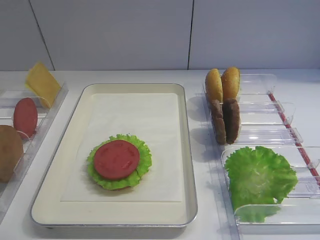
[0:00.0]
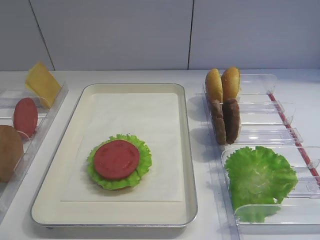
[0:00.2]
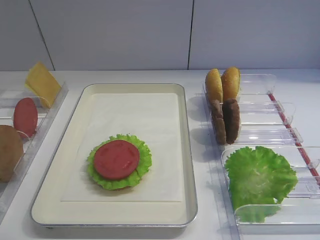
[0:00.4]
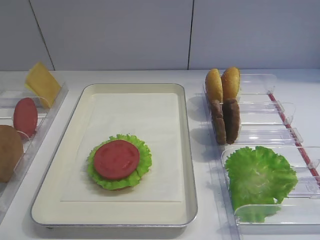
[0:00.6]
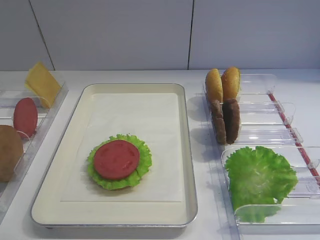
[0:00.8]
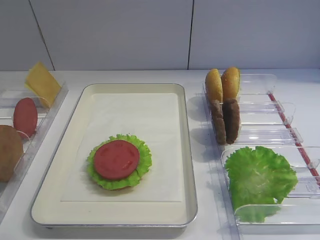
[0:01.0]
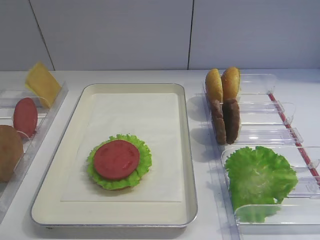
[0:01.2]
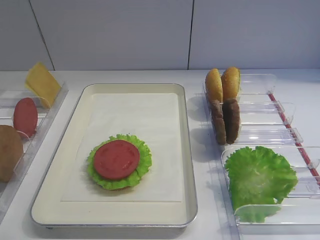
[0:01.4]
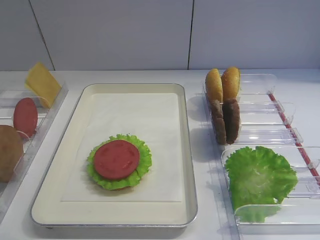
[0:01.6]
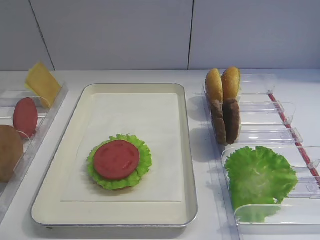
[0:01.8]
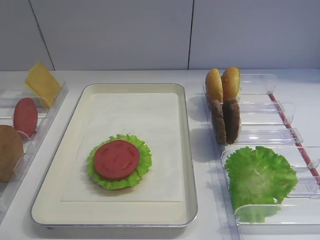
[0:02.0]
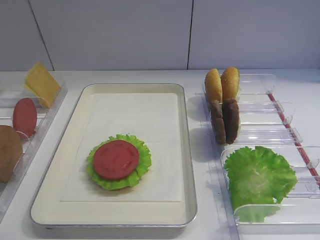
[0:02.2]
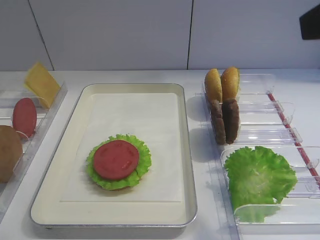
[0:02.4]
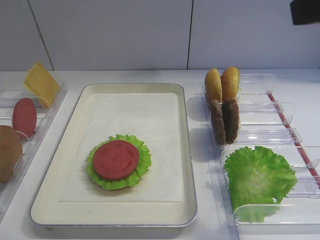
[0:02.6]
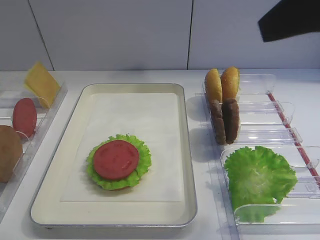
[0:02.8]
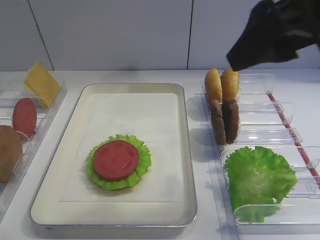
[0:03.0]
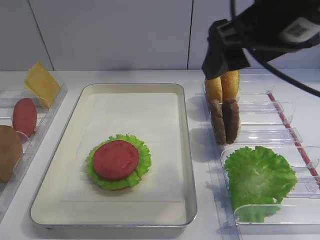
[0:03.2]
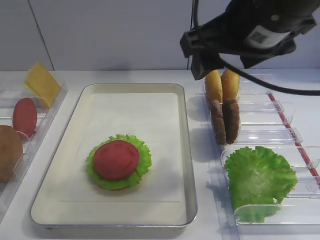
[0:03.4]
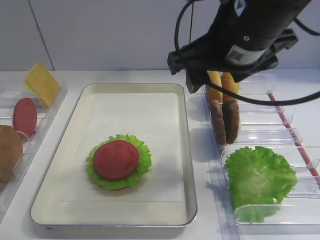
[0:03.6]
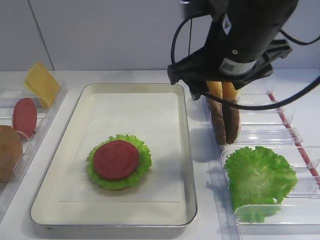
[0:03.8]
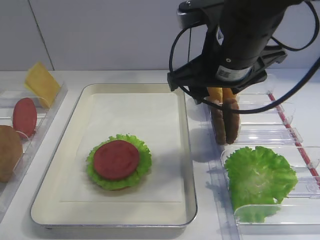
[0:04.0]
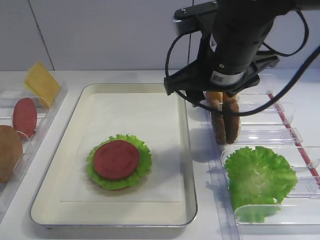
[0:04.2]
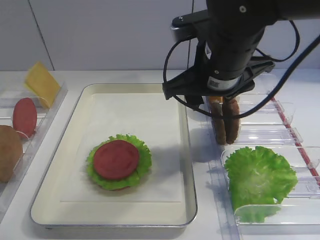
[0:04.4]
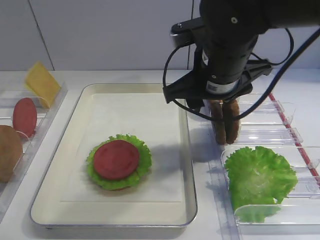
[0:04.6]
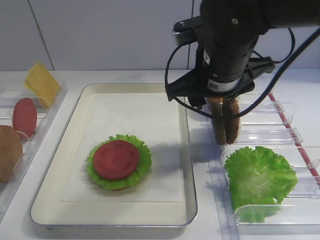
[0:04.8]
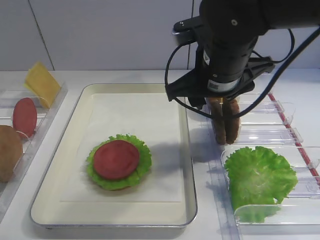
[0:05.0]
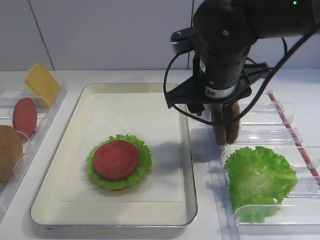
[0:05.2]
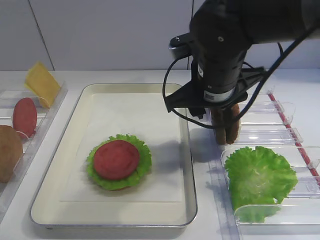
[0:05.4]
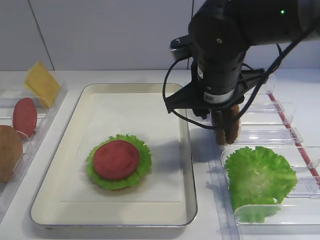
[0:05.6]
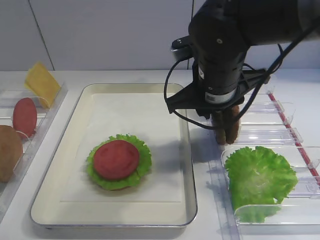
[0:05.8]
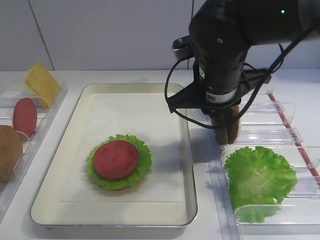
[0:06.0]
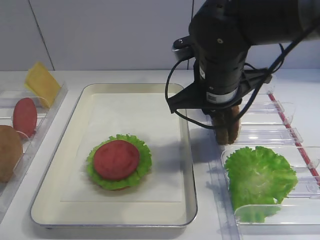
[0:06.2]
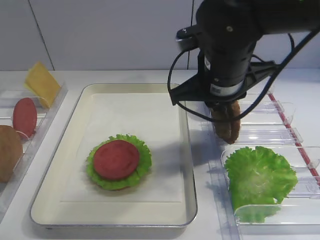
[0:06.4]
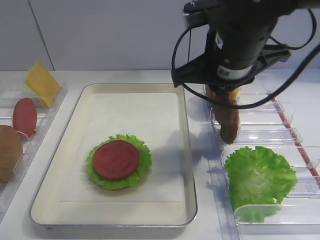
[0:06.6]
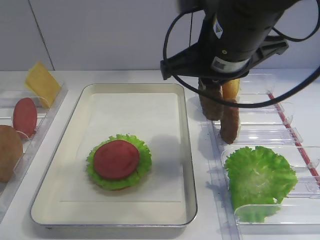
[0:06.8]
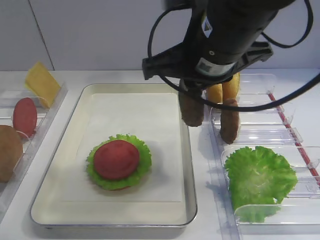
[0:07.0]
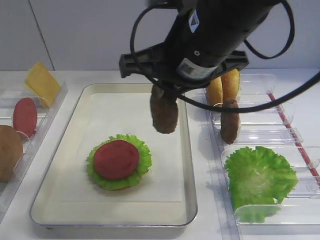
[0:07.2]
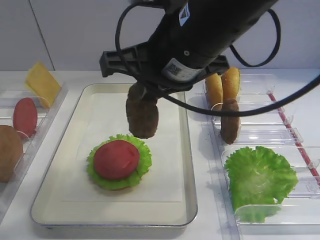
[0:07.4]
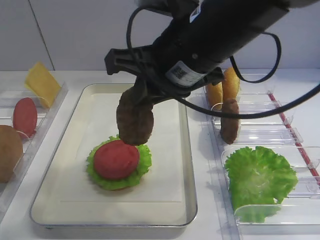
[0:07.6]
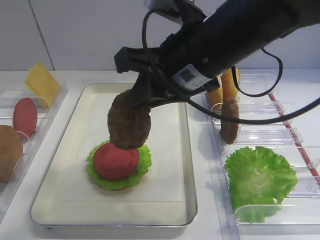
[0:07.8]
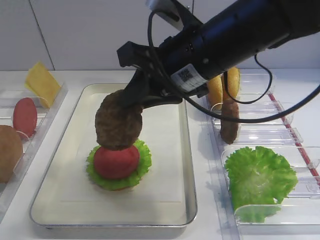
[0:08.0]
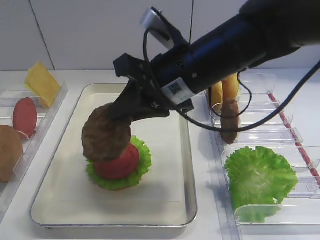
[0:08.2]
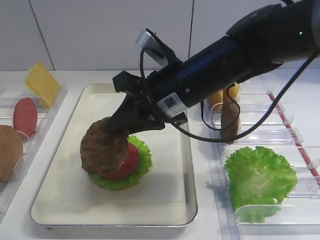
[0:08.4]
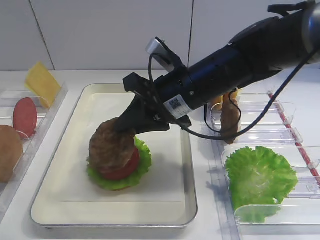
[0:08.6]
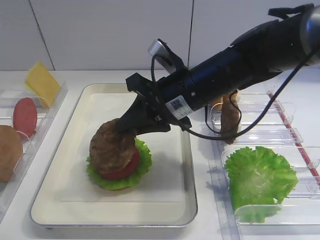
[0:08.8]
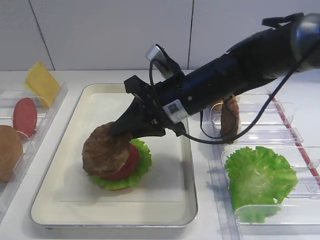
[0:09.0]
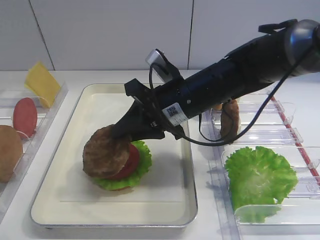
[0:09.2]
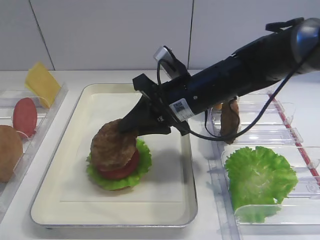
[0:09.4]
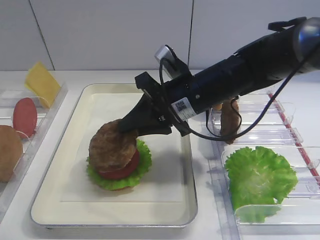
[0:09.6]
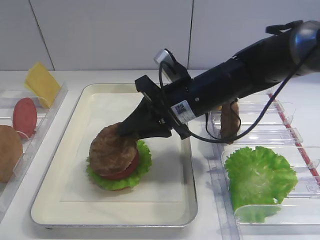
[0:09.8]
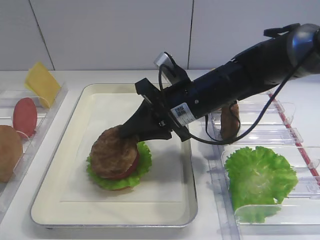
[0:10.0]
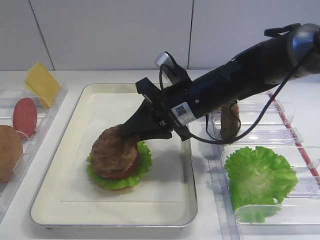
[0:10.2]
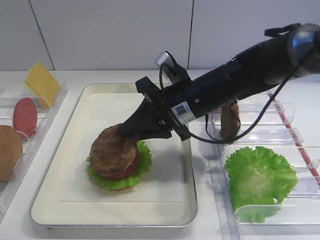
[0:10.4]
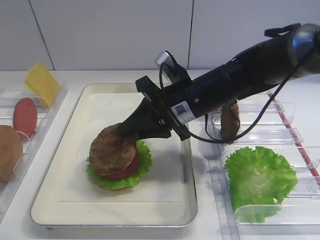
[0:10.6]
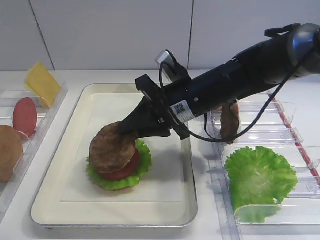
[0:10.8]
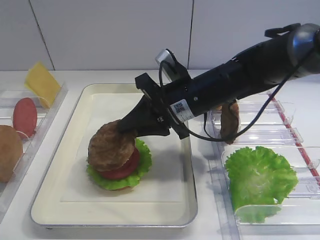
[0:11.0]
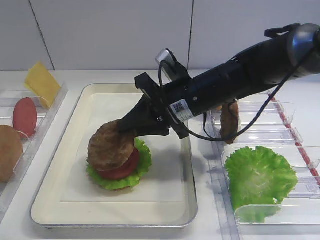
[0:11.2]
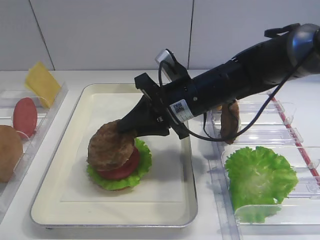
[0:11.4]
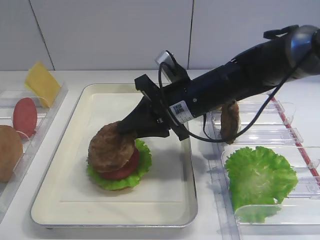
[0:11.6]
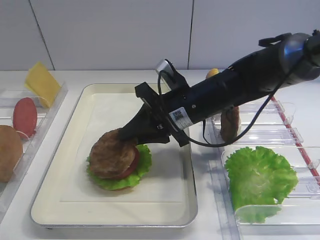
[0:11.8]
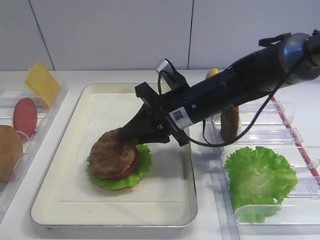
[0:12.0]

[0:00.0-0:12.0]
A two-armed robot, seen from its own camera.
Step, 0.0 to 6.6 s: Pick up the cutlet with the right gripper.
1.6 to 3.0 s: The right gripper travels forward and to the left by about 20 cm.
3.0 to 4.4 s: The right gripper travels downward, to the left and forward by roughly 15 cm, and closes up.
4.4 to 6.0 s: The right gripper closes its fingers.
6.0 to 7.6 s: The right gripper shifts roughly 10 cm upward and backward.
7.6 to 9.0 s: The right gripper heads downward and forward, covering about 10 cm.
9.0 to 12.0 s: The grippers make only small movements.

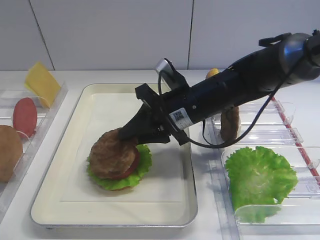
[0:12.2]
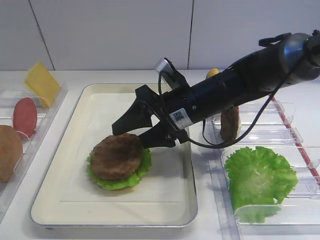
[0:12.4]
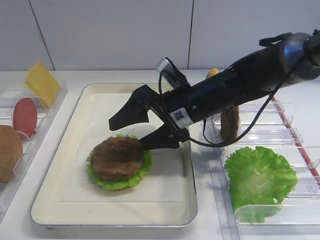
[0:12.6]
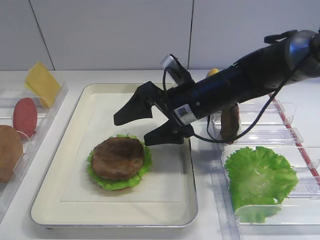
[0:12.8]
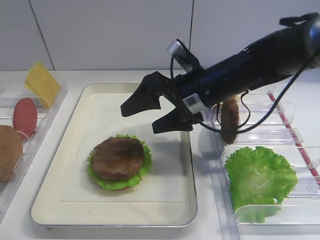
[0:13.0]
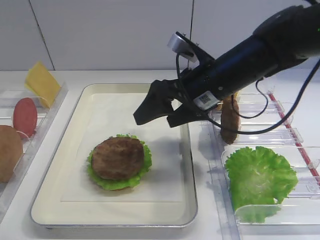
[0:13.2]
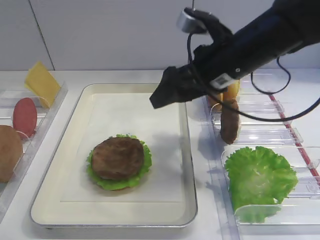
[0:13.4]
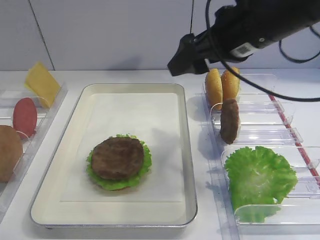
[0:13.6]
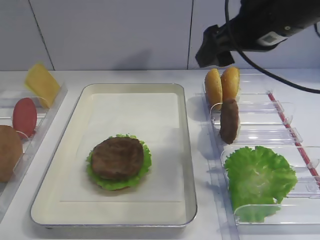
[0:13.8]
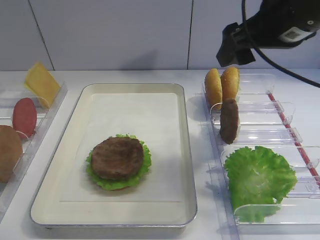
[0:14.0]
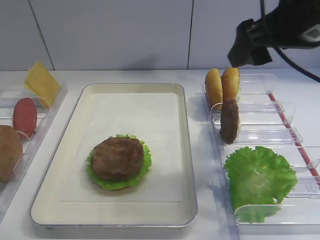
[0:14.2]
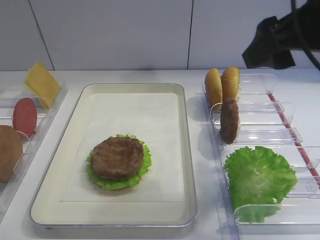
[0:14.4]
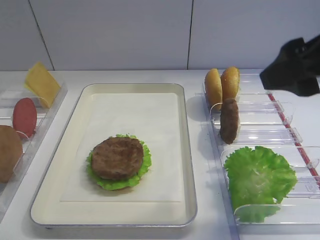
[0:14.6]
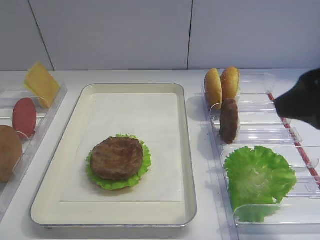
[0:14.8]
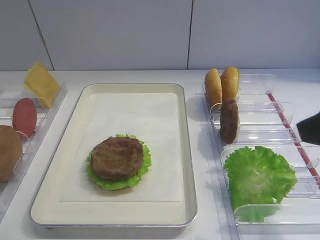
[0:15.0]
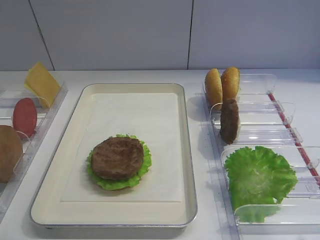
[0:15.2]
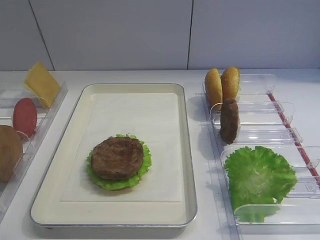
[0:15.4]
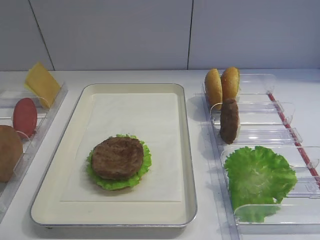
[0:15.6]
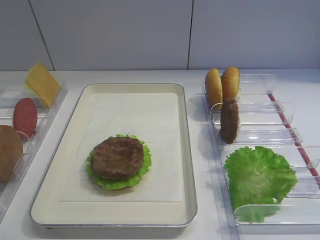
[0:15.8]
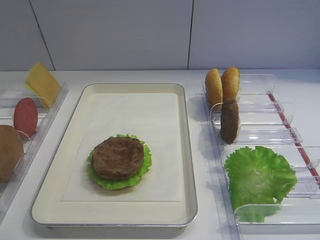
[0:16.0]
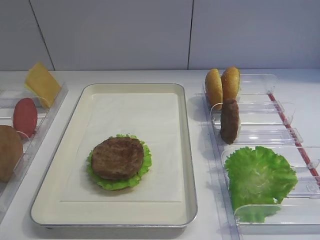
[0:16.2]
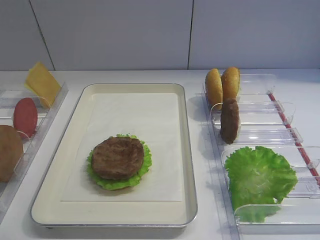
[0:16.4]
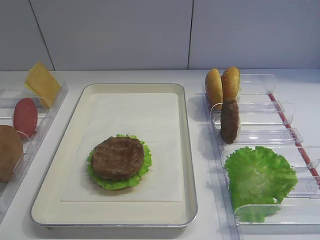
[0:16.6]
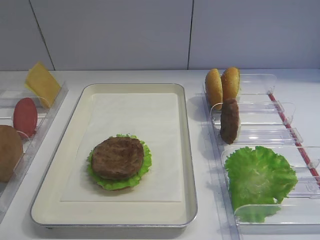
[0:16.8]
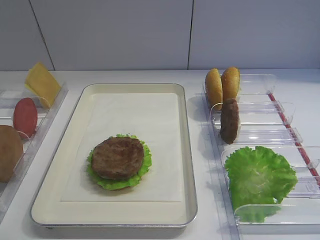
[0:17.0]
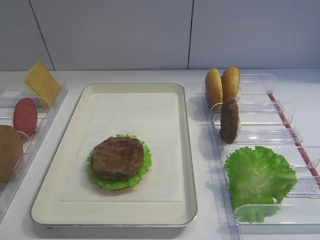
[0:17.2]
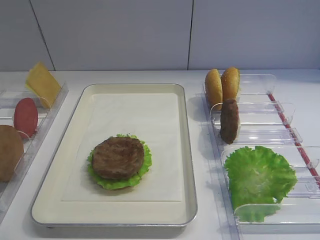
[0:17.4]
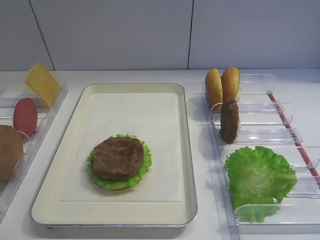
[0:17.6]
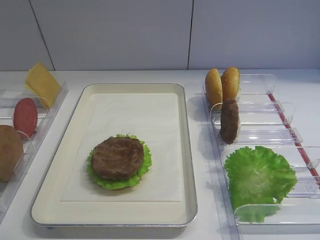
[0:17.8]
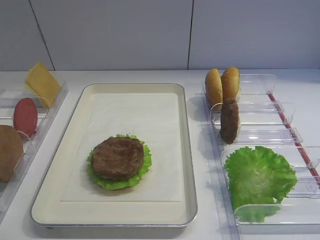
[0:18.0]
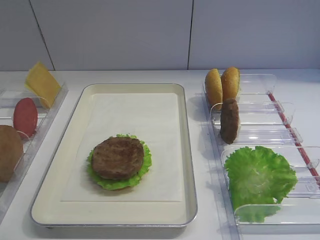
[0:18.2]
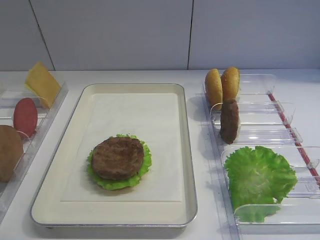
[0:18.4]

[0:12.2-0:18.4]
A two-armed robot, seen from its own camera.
12.2 to 13.8 s: The right gripper is displaced upward and to the right by about 15 cm, and opens up.
13.8 to 15.4 s: The right gripper shifts roughly 25 cm backward and to the right.
16.8 to 18.4 s: Neither gripper changes place.

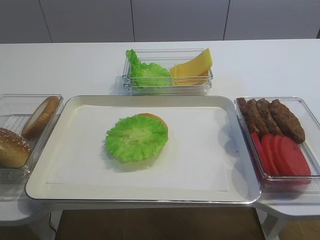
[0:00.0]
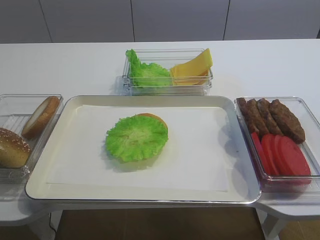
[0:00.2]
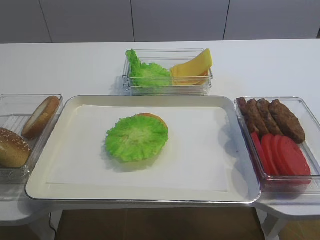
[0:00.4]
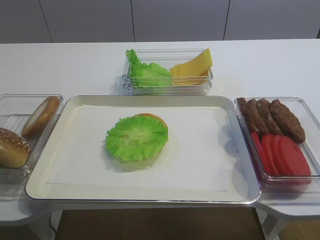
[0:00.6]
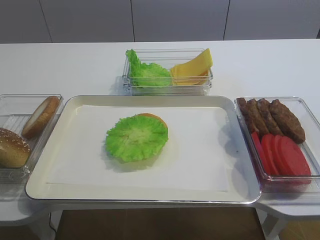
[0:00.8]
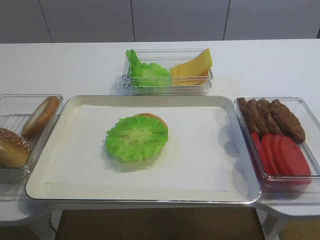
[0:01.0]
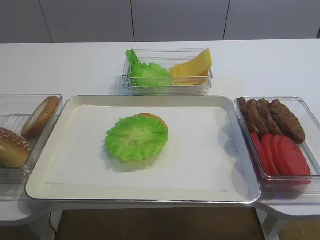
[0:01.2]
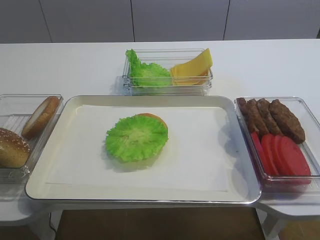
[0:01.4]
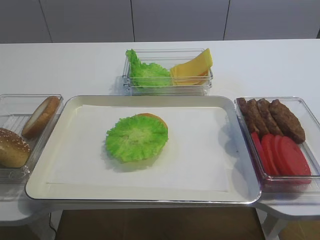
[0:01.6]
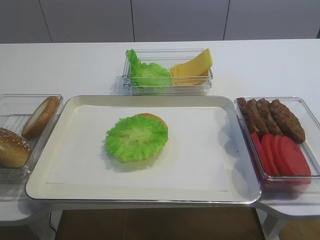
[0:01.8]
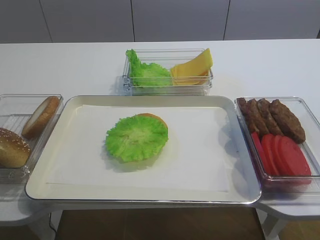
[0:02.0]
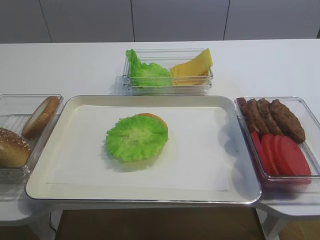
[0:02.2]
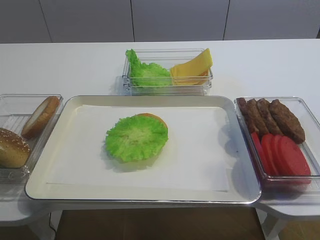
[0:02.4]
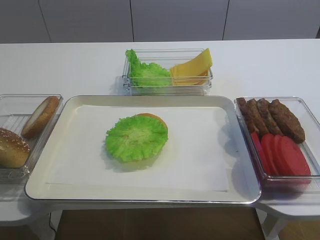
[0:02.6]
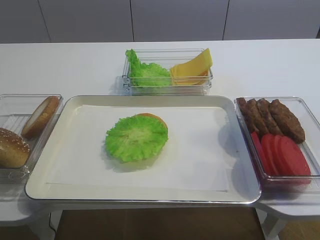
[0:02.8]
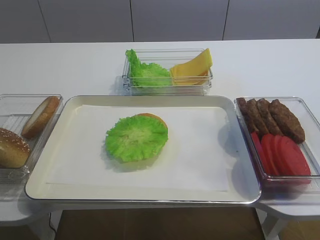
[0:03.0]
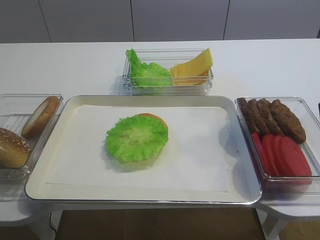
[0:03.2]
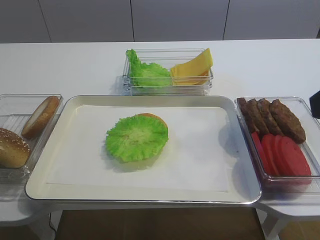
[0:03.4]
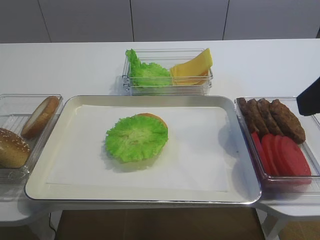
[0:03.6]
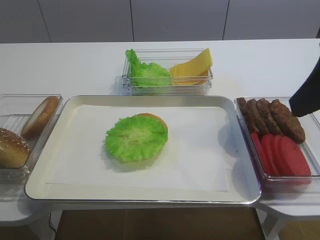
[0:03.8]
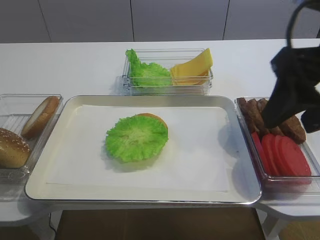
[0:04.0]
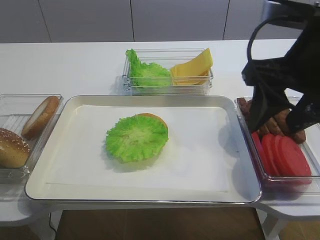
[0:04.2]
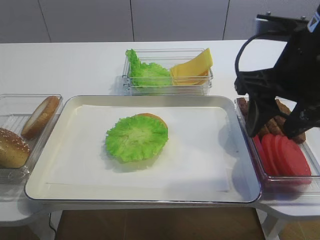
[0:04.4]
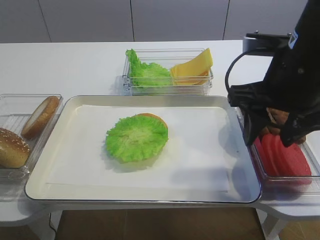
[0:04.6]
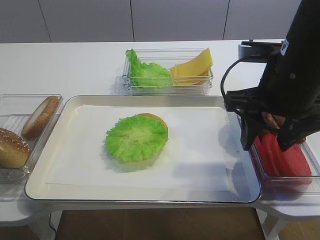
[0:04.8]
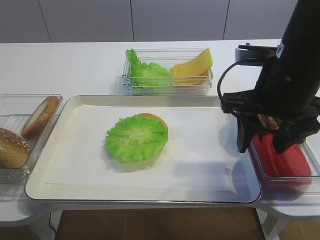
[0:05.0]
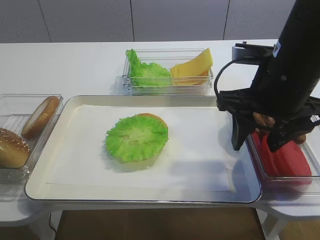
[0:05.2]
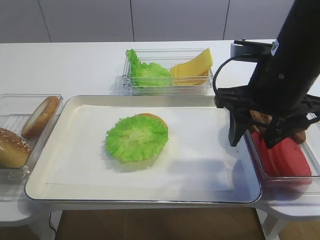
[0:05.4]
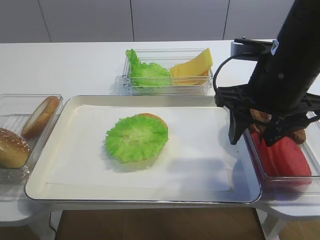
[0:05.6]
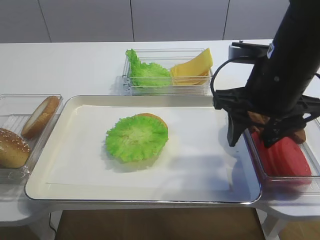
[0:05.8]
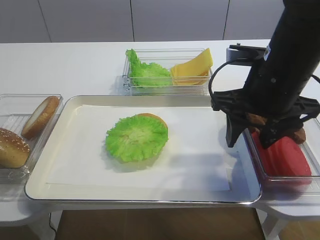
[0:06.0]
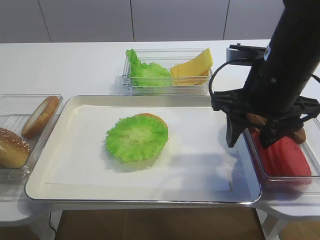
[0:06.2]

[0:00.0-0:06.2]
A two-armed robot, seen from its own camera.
3.2 to 4.6 s: The right gripper goes some 15 cm forward, to the left and downward.
4.6 to 6.2 s: The grippers make only small movements.
